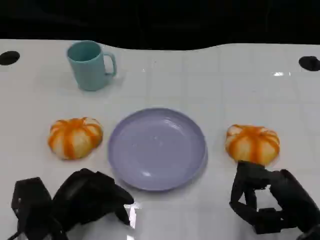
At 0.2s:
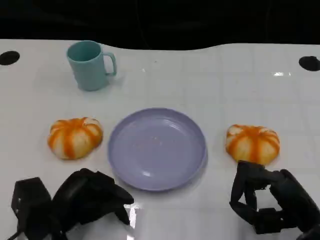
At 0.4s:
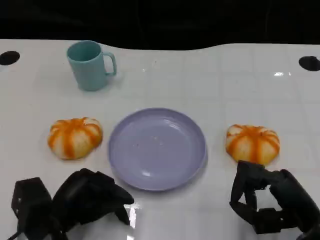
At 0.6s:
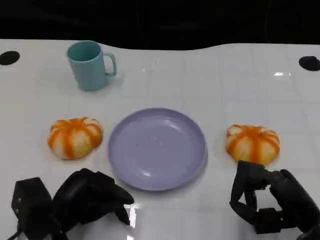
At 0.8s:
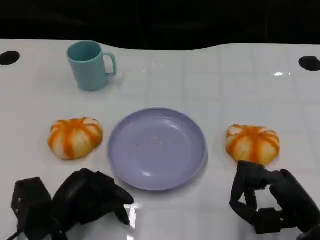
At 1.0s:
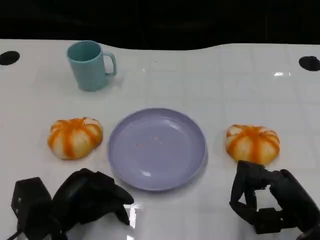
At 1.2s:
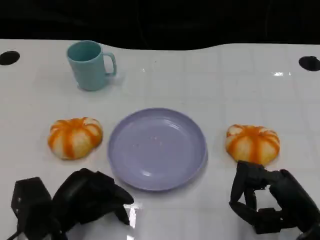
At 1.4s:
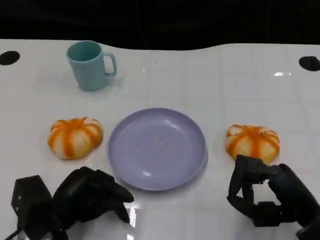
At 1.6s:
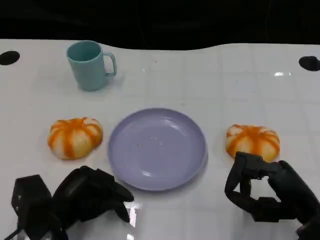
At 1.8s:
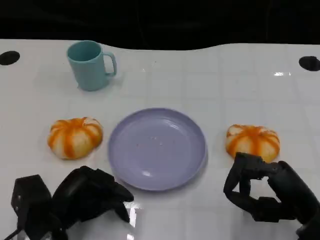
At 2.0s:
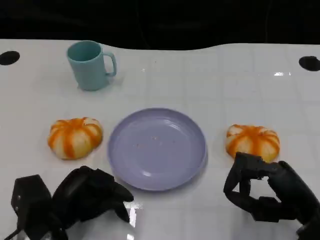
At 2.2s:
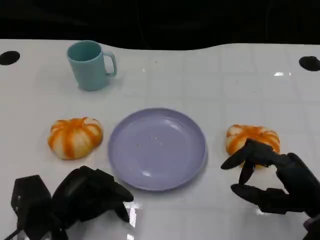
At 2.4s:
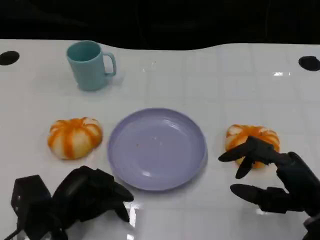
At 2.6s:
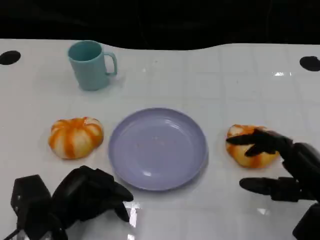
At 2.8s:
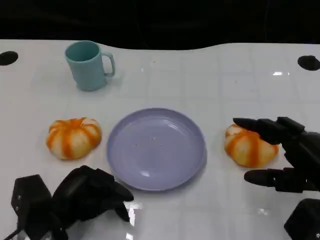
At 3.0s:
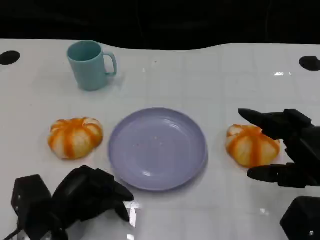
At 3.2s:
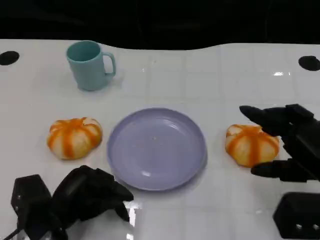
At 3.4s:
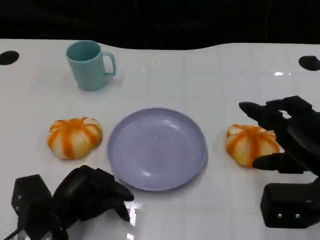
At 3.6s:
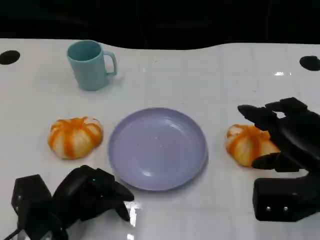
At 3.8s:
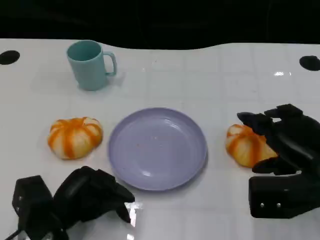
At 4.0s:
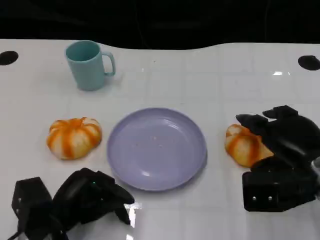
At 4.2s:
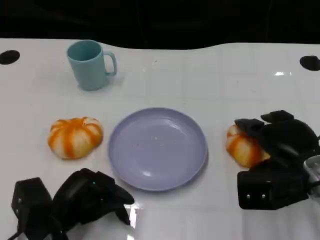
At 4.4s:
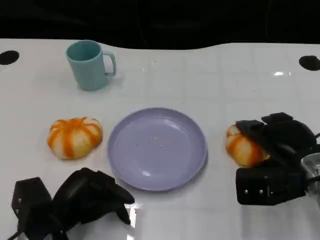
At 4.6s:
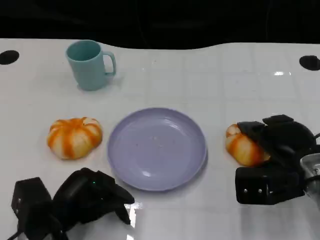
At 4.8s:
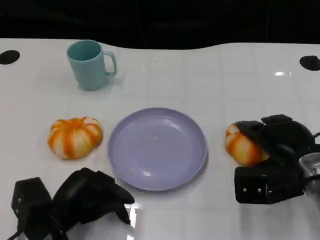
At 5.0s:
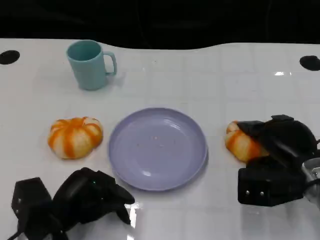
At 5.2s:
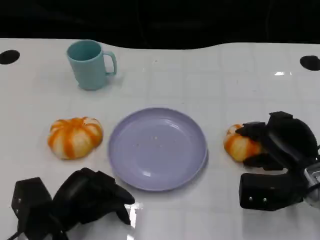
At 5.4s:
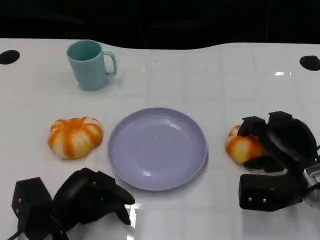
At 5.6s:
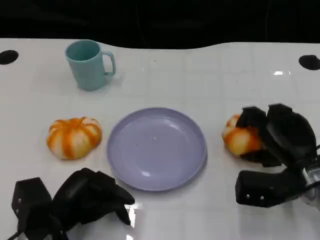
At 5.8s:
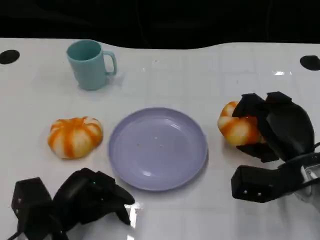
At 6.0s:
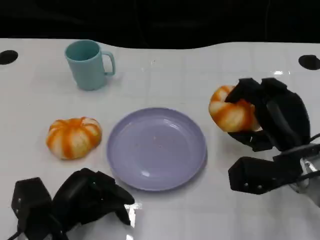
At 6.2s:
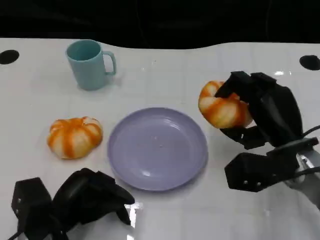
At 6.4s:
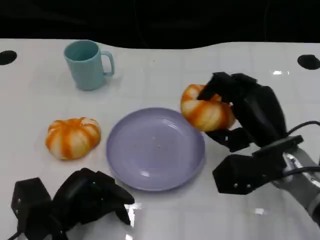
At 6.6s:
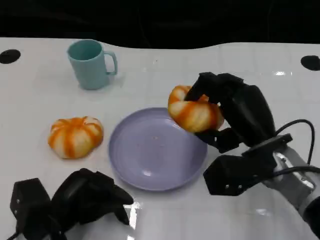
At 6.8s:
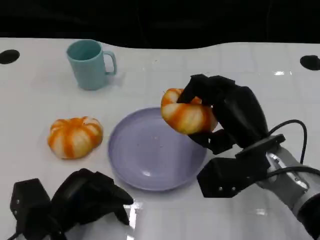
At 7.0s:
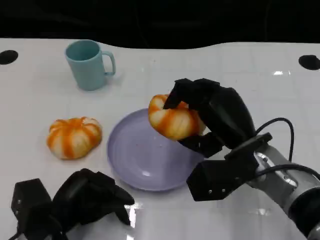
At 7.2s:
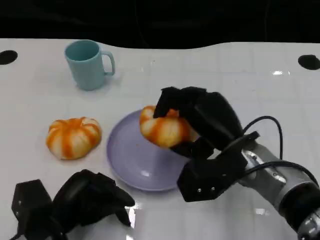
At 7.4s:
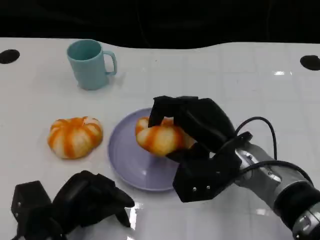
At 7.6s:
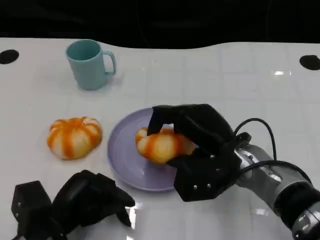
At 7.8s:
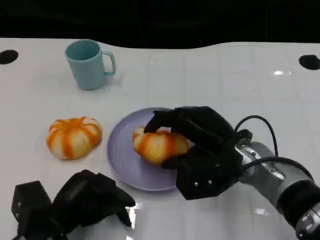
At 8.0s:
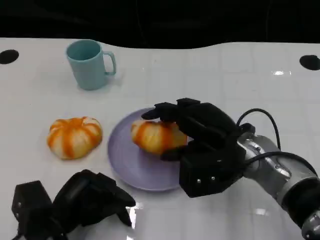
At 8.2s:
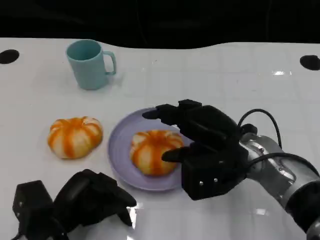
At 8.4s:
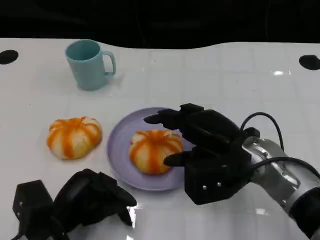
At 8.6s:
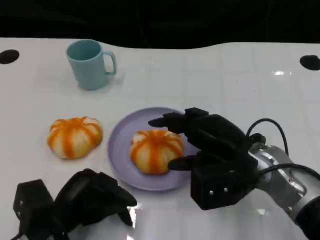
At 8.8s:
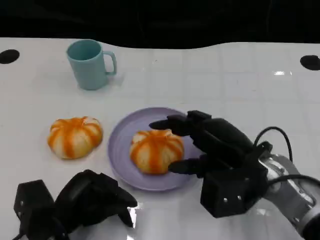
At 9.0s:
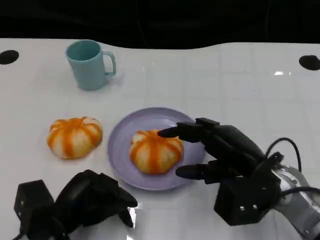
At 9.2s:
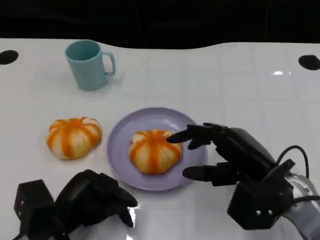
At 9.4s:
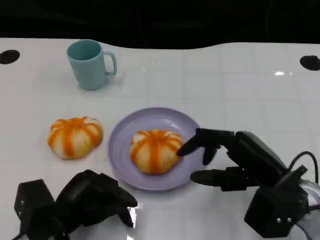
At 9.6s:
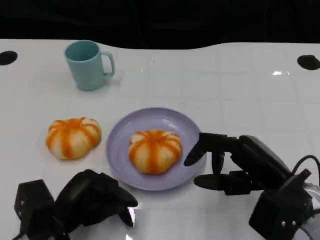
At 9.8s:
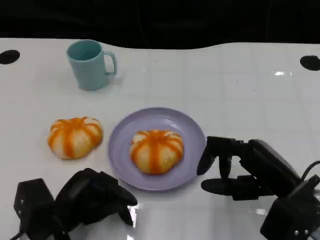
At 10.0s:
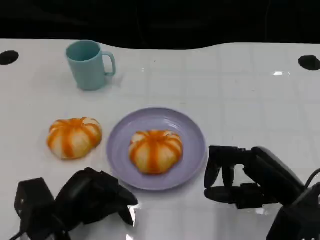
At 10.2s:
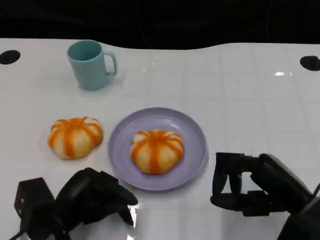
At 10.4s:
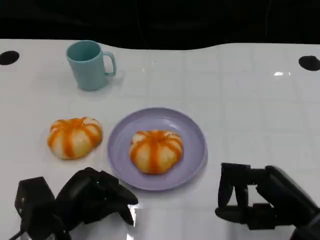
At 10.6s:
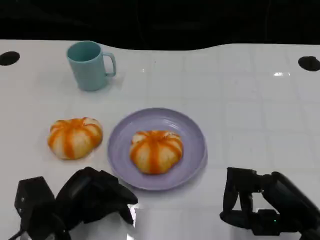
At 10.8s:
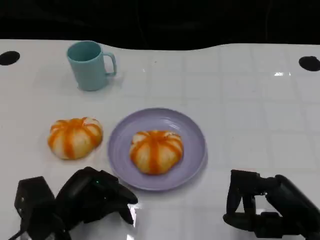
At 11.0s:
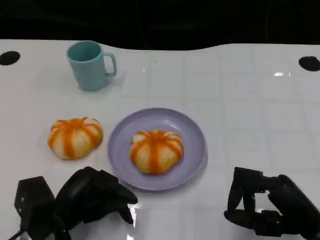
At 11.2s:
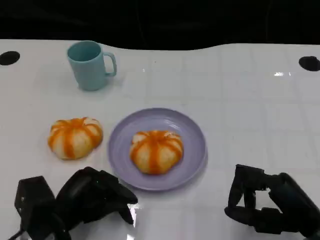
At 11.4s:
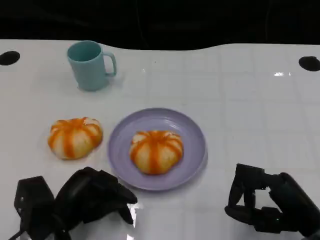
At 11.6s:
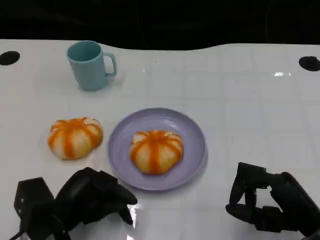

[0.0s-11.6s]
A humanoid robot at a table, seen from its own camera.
Task of the whole recording: Grasp the bread from the table and place it into the plate.
0.0s to 1.4s: Both hands stay put.
1.4s to 2.8s: The right hand is displaced upward by approximately 5 cm.
2.8s to 4.4s: The right hand moves forward, about 5 cm.
5.8s to 7.2s: The right hand heads to the left, covering roughly 10 cm.
8.8s to 10.2s: The right hand moves to the right and backward, about 10 cm.
10.2s to 11.6s: There are only small adjustments of the hands.

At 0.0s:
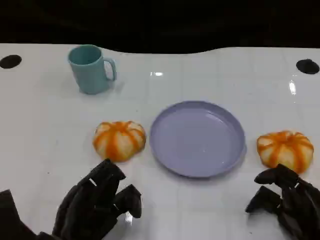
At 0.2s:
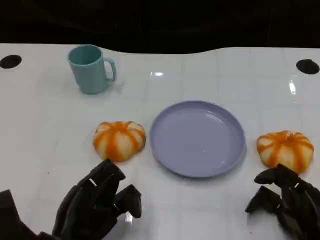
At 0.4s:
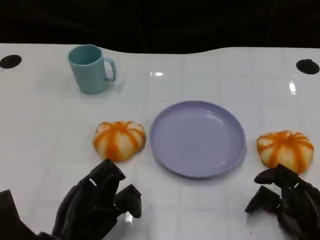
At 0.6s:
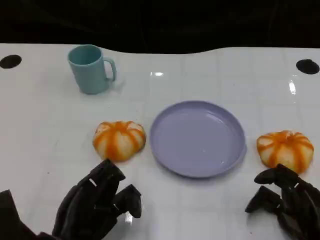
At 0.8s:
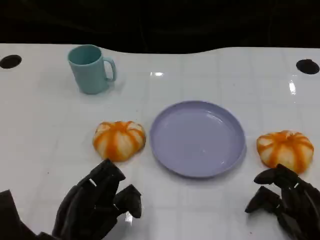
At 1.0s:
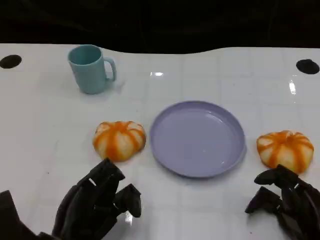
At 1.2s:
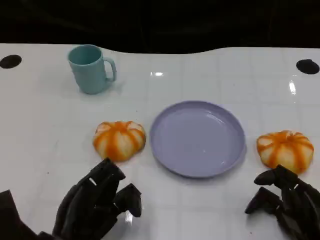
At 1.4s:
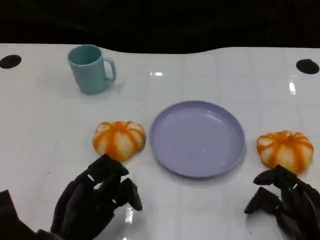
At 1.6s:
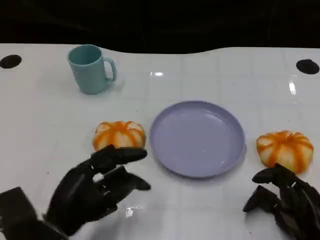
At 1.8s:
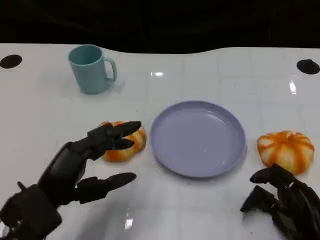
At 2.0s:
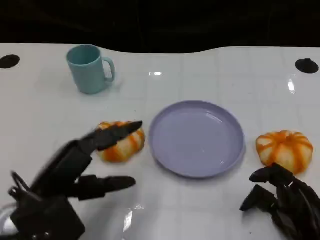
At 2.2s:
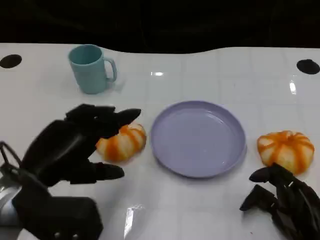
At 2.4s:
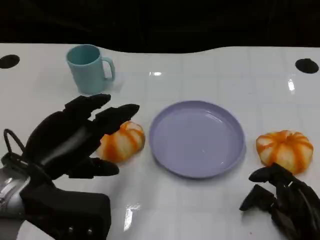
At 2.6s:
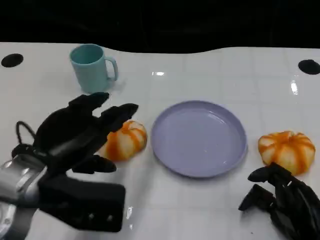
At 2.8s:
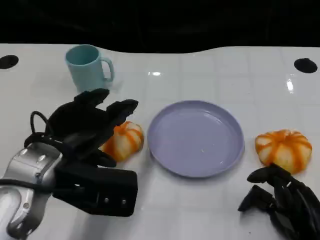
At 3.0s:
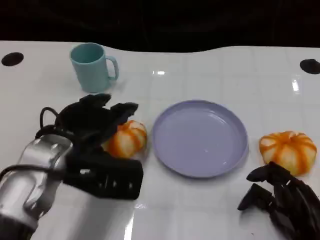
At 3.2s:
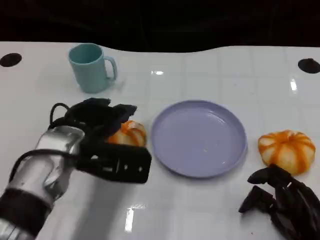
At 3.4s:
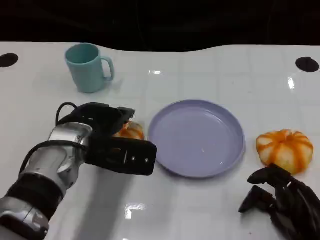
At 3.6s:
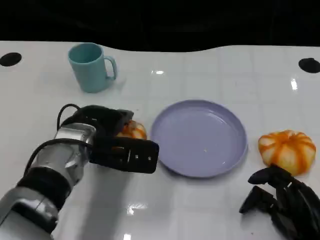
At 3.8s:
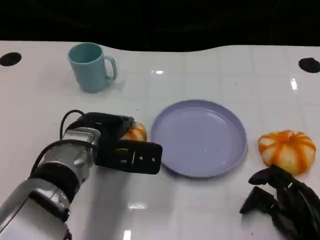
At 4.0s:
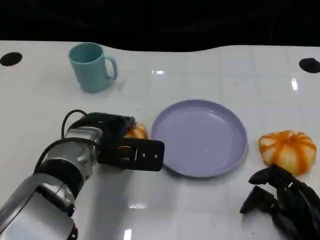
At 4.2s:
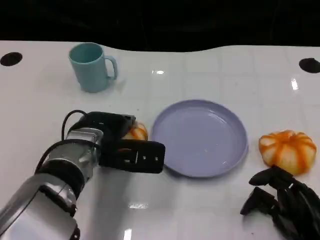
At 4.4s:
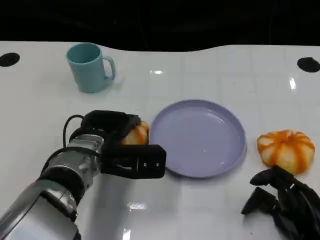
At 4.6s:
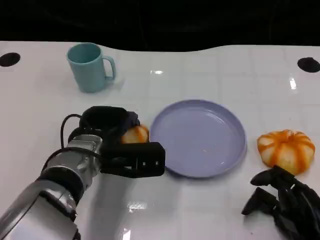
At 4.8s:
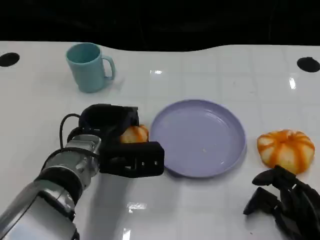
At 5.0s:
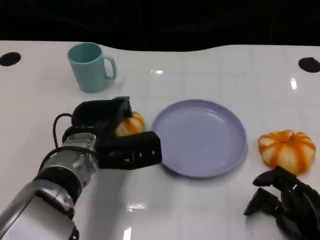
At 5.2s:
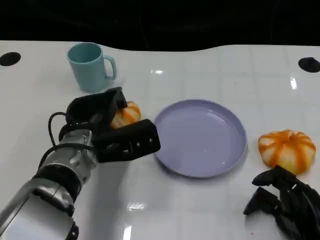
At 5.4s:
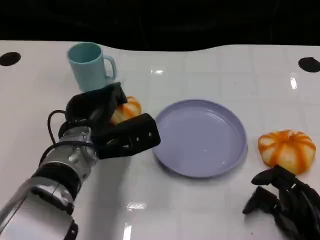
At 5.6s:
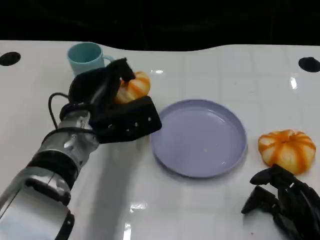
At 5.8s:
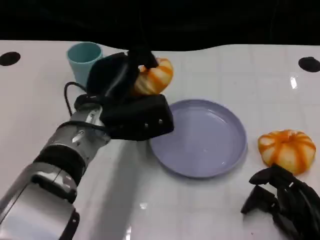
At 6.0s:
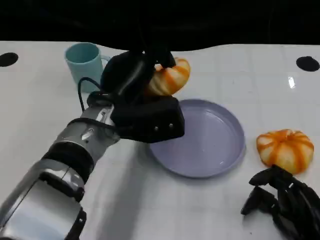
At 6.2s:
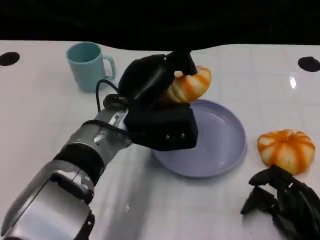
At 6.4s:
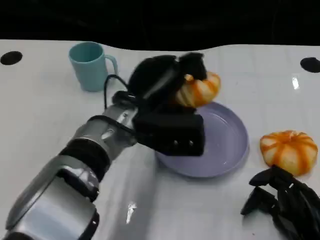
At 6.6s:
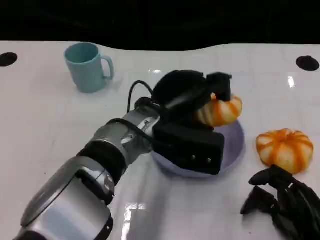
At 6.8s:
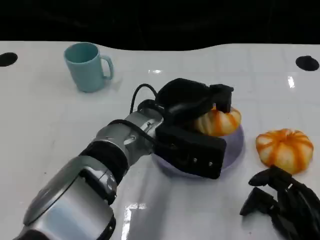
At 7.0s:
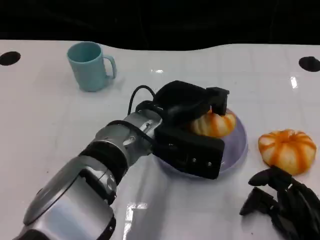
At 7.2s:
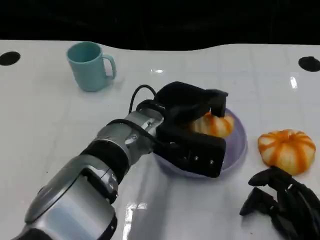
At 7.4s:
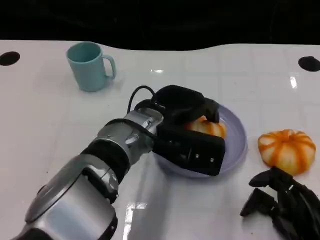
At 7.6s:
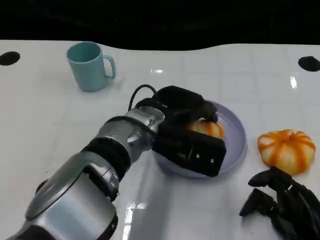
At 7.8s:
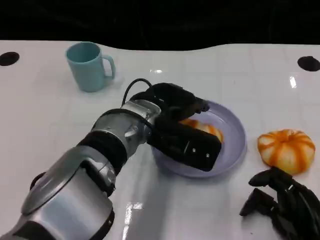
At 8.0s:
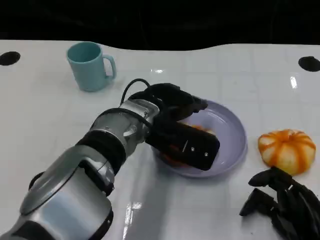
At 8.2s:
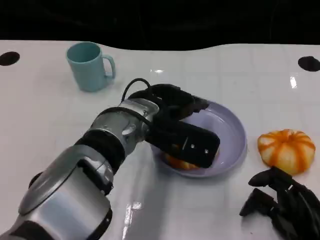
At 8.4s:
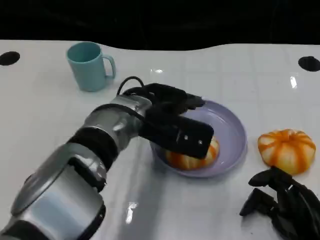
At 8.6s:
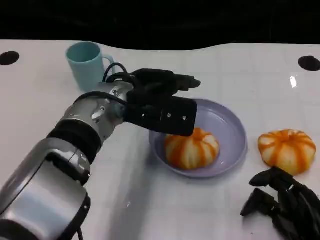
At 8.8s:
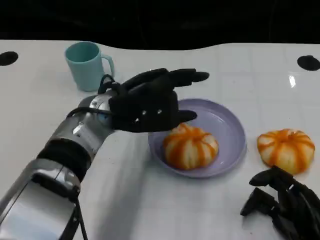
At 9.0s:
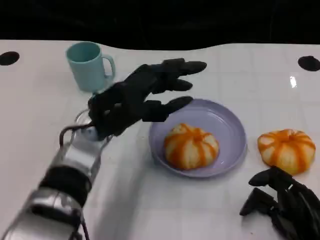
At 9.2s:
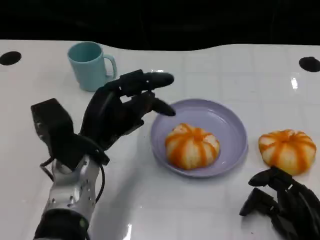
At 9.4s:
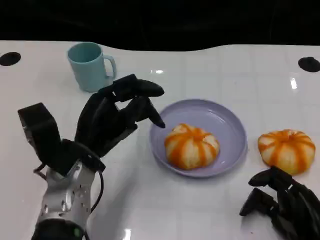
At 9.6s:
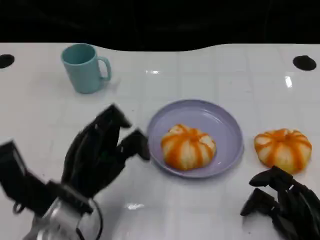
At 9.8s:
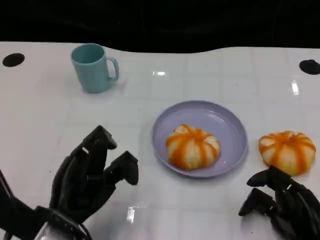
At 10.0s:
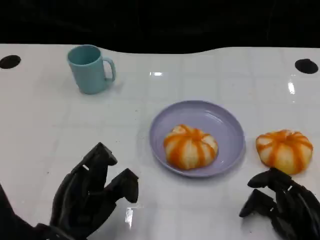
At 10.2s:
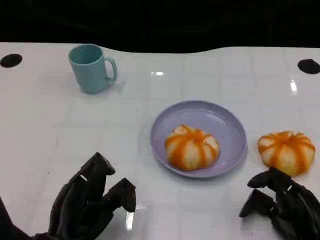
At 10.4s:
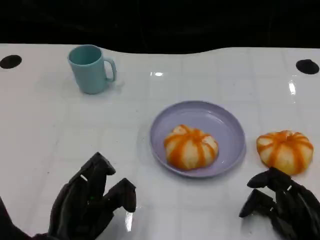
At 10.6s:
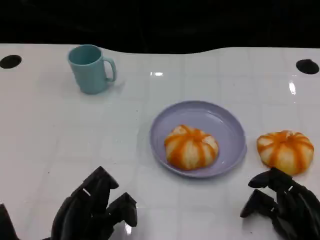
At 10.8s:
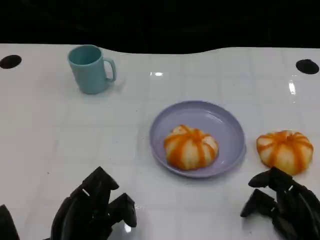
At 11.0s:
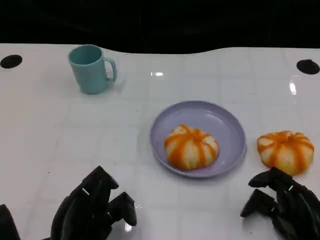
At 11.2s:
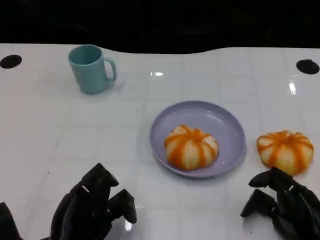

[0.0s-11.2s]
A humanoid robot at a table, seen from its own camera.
Task of the whole recording: Grasp the bread from the table and place it into the plate.
1.6s to 3.2s: The left hand moves forward, upward and to the right, approximately 15 cm.
3.2s to 4.8s: The left hand shifts by about 5 cm.
4.8s to 6.4s: The left hand is displaced to the right and upward by some 10 cm.
8.0s to 9.6s: The left hand travels to the left, backward and downward by approximately 20 cm.
9.6s to 11.2s: The left hand travels backward by about 5 cm.
